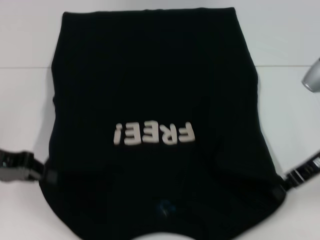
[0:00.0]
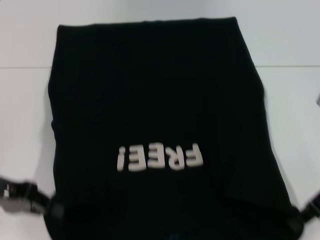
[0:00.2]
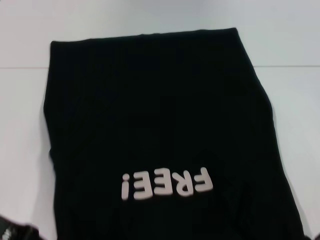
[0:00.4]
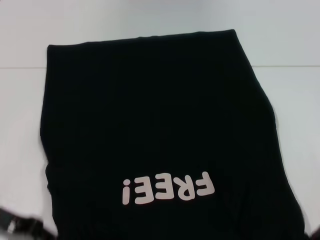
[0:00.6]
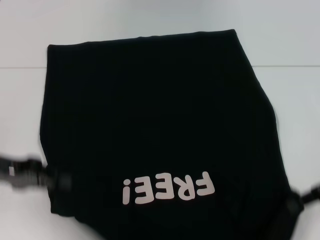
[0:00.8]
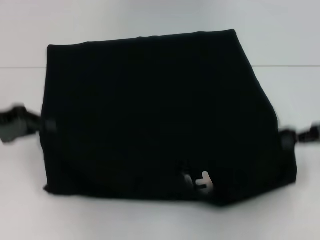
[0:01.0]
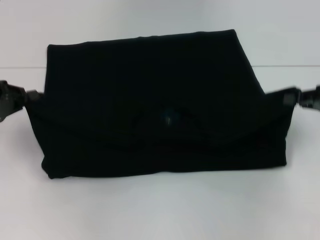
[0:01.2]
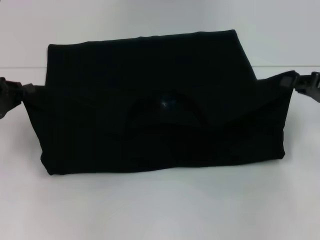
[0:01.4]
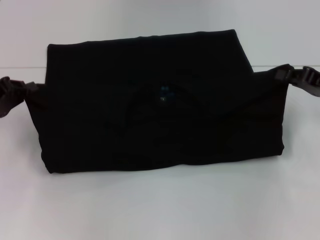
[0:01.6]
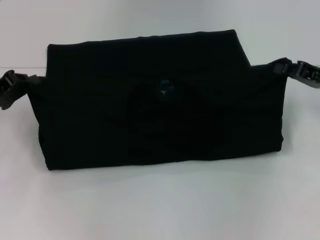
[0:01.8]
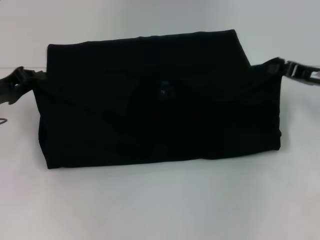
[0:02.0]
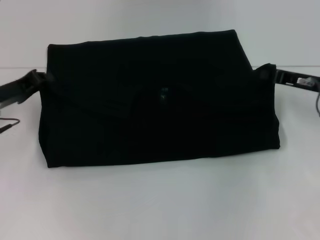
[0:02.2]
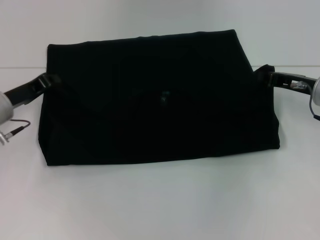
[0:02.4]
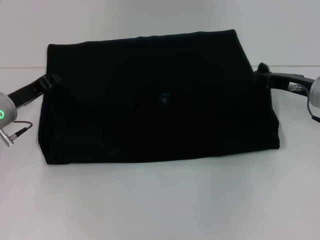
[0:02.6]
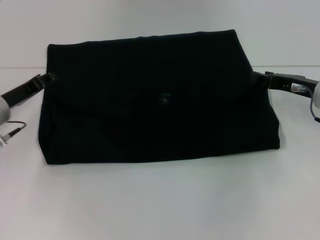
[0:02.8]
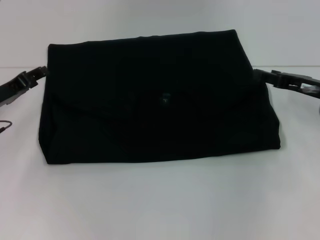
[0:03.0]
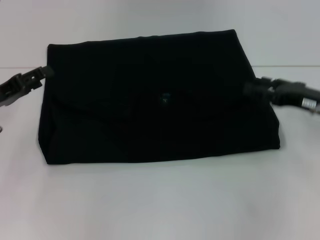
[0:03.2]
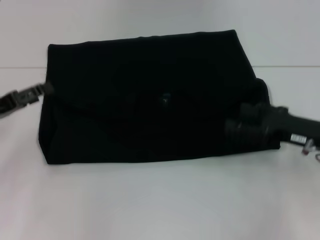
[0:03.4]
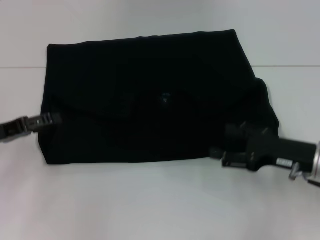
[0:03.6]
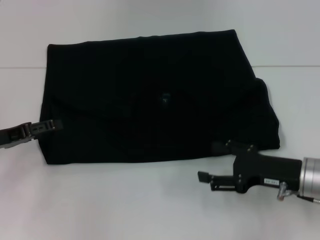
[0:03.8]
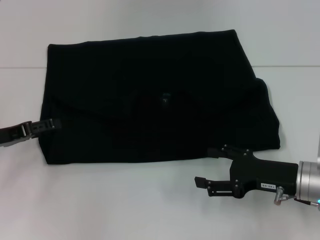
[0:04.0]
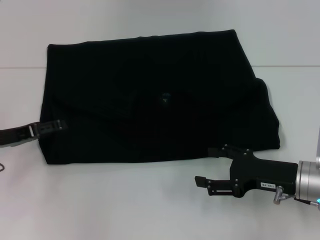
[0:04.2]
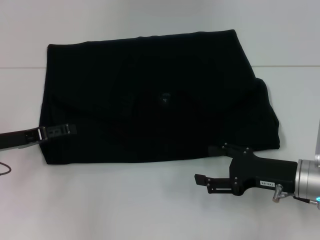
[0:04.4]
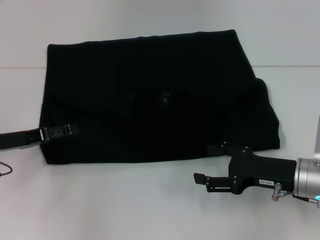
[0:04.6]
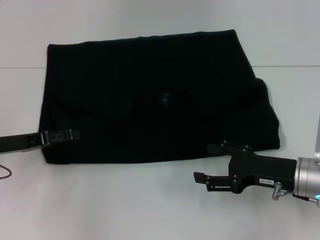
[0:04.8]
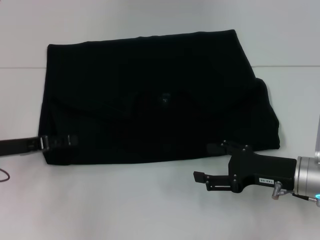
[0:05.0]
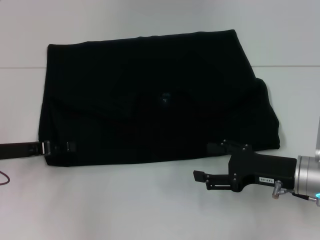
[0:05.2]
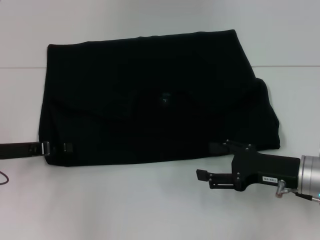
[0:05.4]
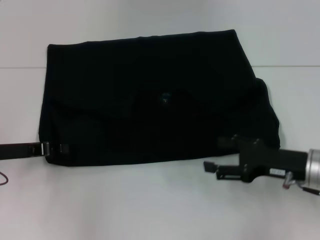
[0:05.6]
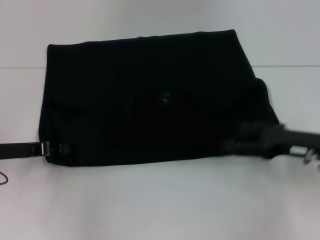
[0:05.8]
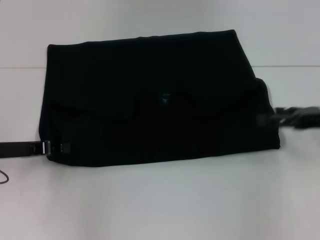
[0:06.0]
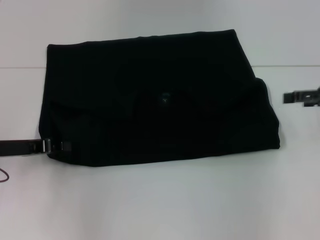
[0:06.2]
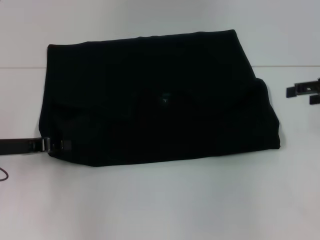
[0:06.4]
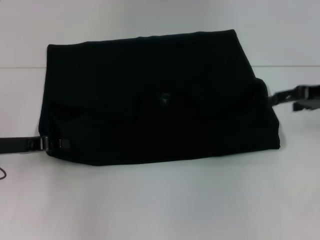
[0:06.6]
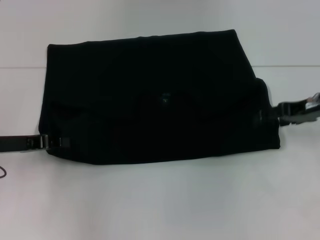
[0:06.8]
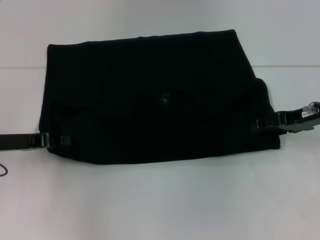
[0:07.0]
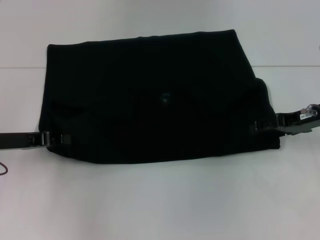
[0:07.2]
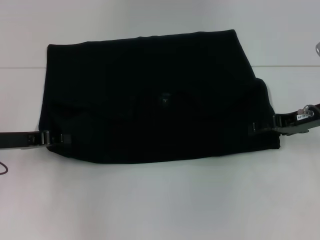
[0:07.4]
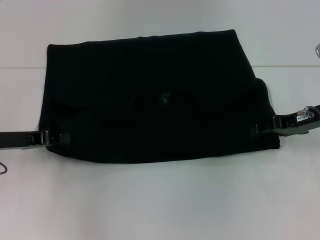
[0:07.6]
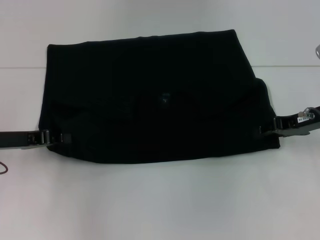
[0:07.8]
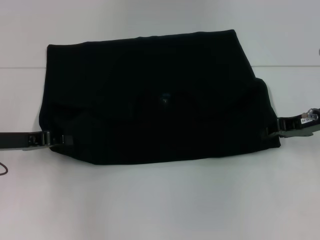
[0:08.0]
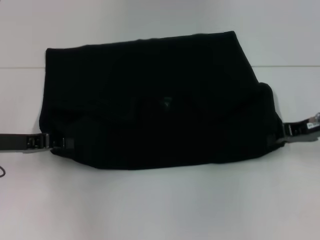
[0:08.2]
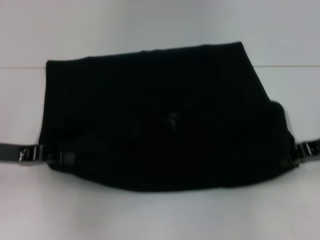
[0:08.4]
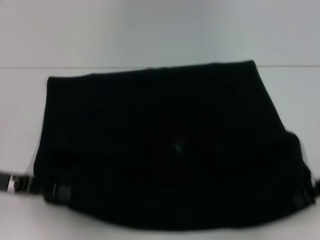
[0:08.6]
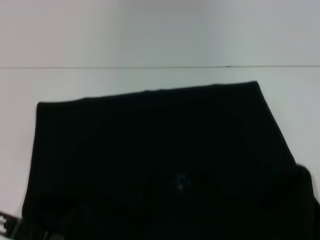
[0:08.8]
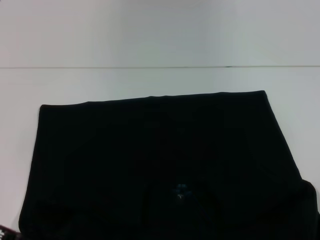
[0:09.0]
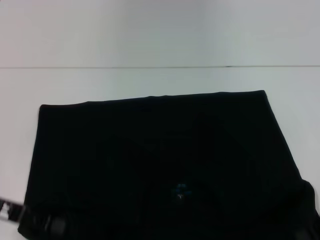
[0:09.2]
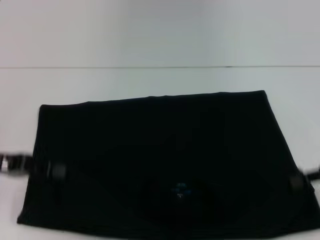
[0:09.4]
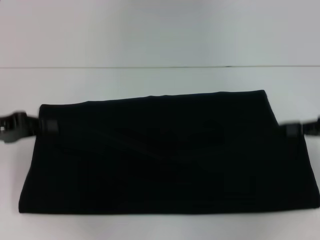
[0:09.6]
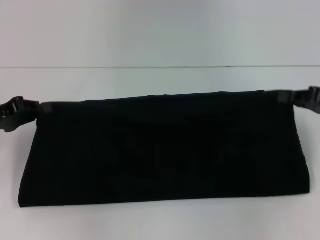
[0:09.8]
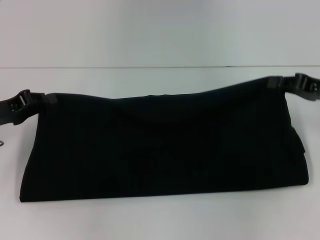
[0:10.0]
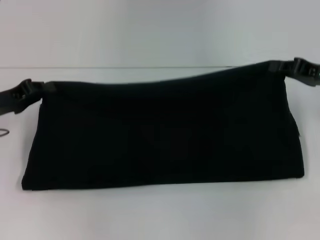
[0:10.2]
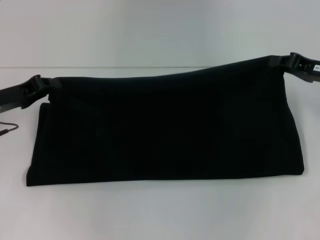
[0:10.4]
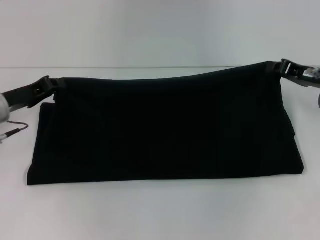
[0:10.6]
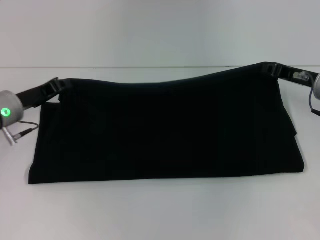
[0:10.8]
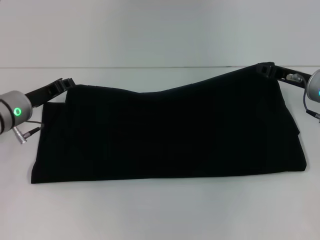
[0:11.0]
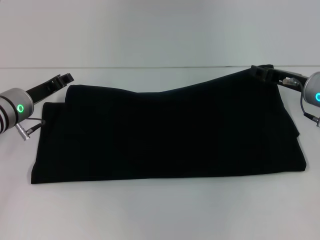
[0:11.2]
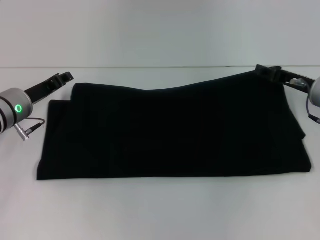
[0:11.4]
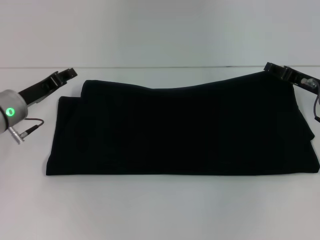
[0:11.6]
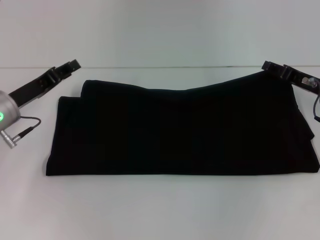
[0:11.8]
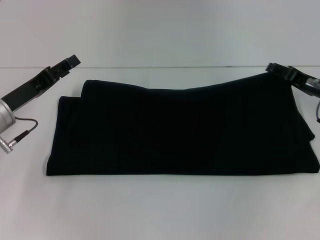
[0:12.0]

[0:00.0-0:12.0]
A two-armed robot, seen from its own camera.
Step, 0:00.0 to 0:02.6: Fold the clothes with your left hand.
Step, 0:00.0 to 0:02.6: Fold the clothes with your right hand.
Step, 0:02.8 to 0:09.0: Pull the clothes with your left hand.
Step, 0:02.8 to 0:09.0: Pull the clothes with your right hand.
0:00.0 to 0:01.6: The right gripper heads to the right, covering about 5 cm. The left gripper reaches some 5 cm backward, then returns.
0:01.6 to 0:03.0: The right gripper opens. The left gripper opens its fingers.
0:03.0 to 0:04.4: The right gripper shifts about 10 cm backward, to the left and downward, and opens its fingers. Meanwhile the left gripper opens.
0:04.4 to 0:06.0: The left gripper closes up. The right gripper goes some 15 cm to the right, upward and forward.
0:06.0 to 0:07.6: The right gripper changes place by roughly 5 cm.
0:07.6 to 0:09.0: The grippers both shift backward by some 10 cm. The right gripper closes its fingers.
0:09.0 to 0:10.4: The grippers both shift forward by about 10 cm.
0:10.4 to 0:12.0: The left gripper opens its fingers. Meanwhile the right gripper opens.

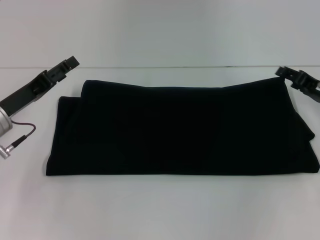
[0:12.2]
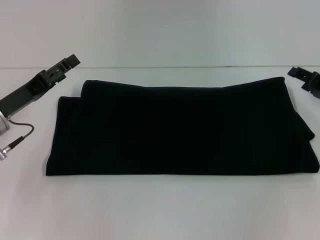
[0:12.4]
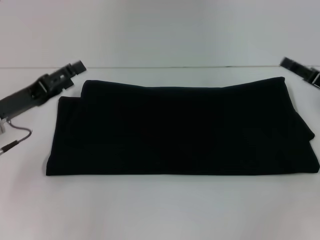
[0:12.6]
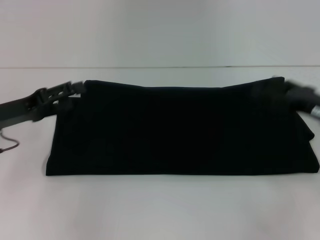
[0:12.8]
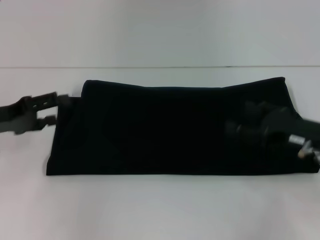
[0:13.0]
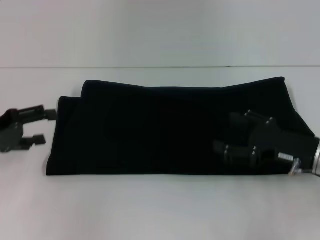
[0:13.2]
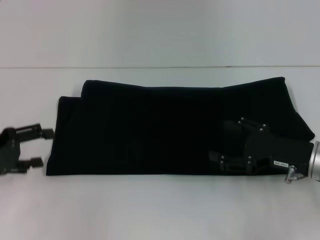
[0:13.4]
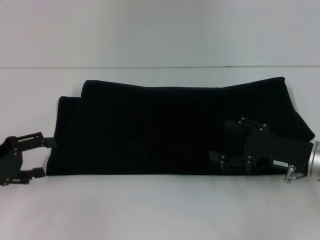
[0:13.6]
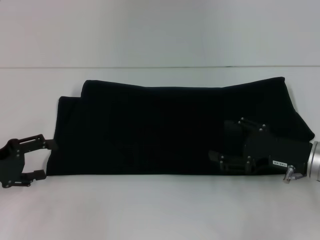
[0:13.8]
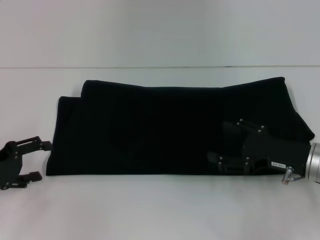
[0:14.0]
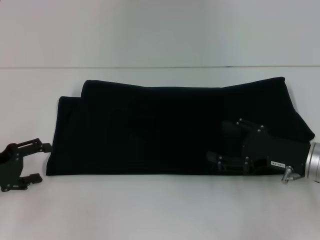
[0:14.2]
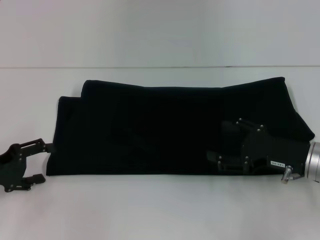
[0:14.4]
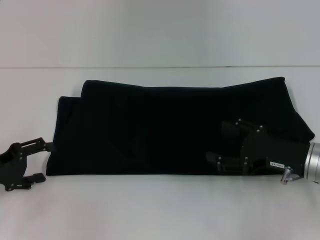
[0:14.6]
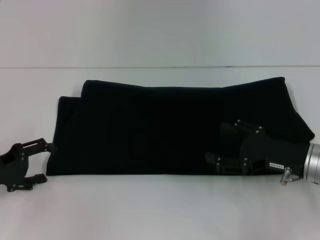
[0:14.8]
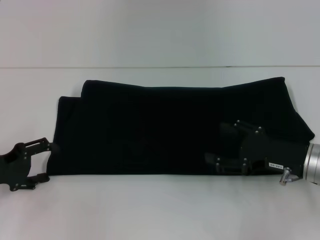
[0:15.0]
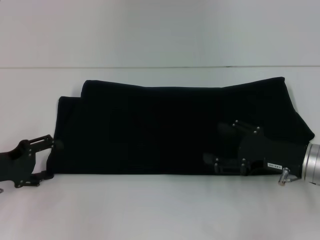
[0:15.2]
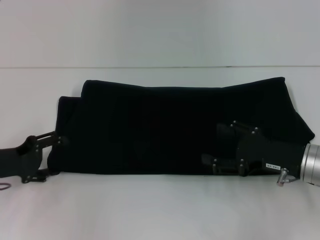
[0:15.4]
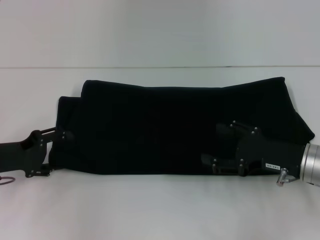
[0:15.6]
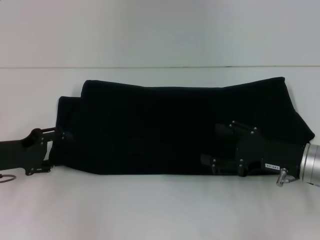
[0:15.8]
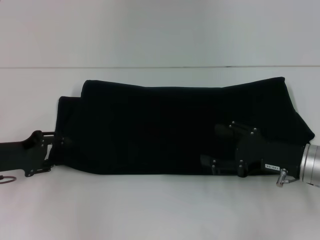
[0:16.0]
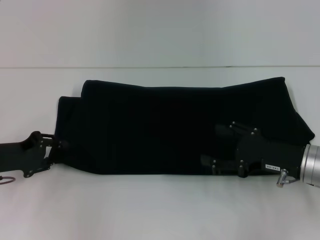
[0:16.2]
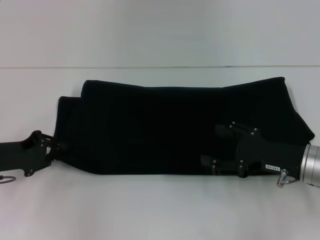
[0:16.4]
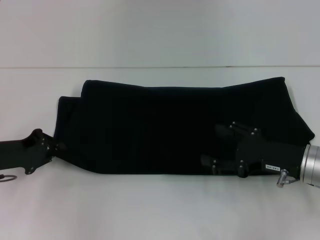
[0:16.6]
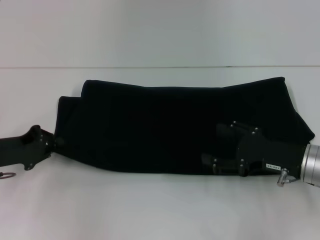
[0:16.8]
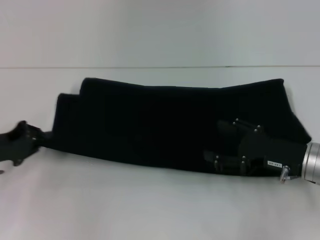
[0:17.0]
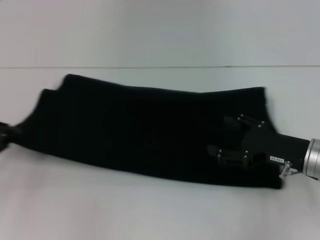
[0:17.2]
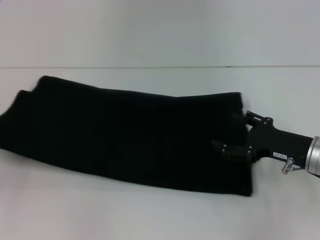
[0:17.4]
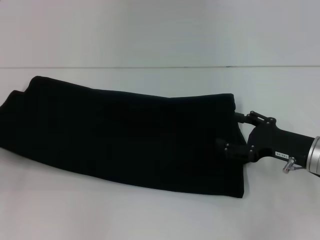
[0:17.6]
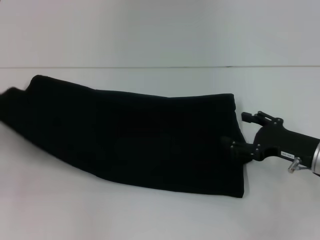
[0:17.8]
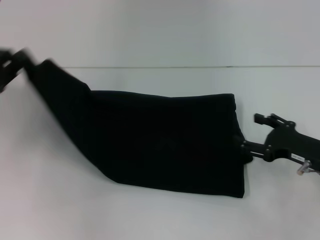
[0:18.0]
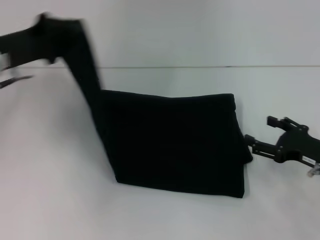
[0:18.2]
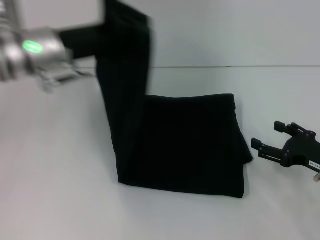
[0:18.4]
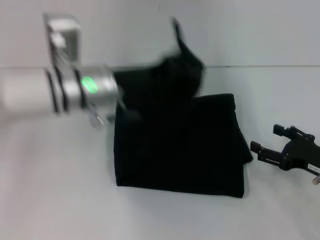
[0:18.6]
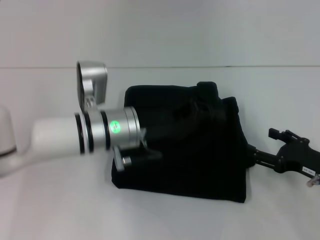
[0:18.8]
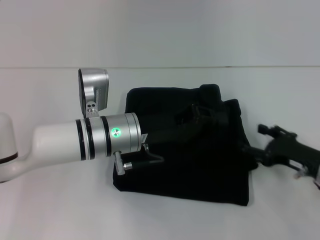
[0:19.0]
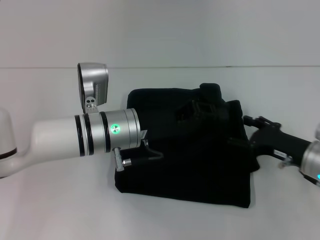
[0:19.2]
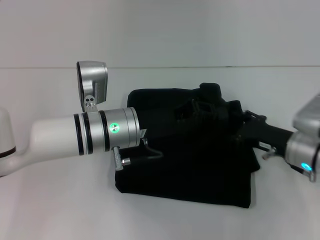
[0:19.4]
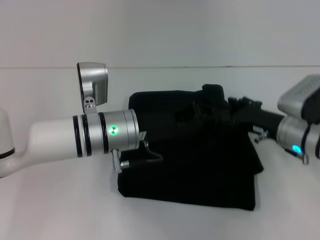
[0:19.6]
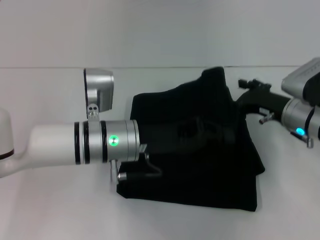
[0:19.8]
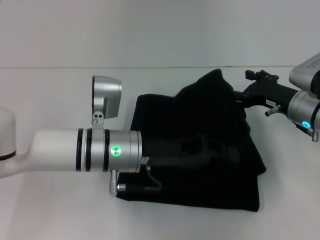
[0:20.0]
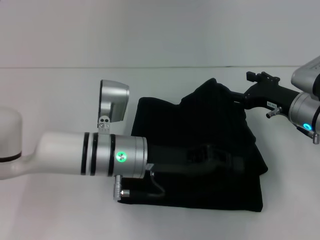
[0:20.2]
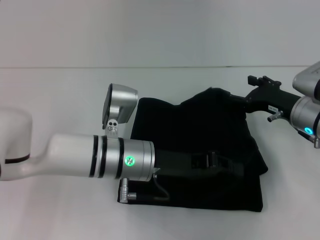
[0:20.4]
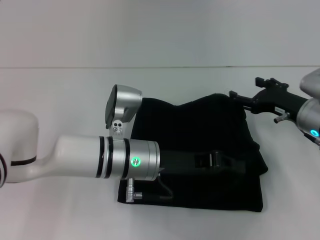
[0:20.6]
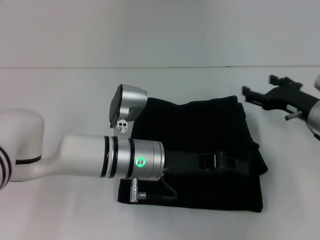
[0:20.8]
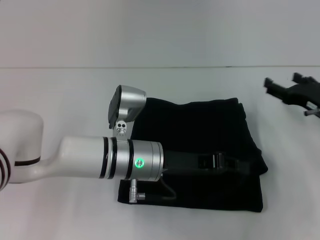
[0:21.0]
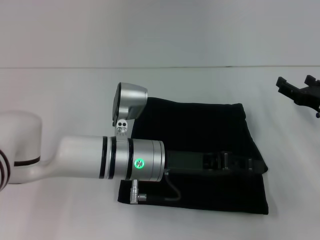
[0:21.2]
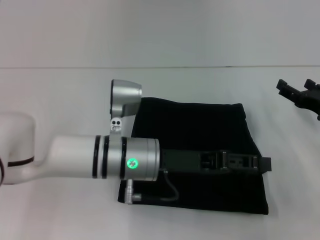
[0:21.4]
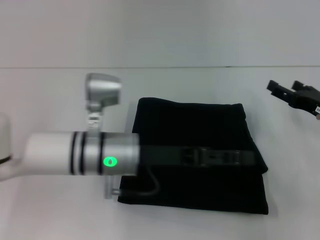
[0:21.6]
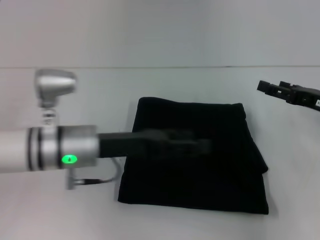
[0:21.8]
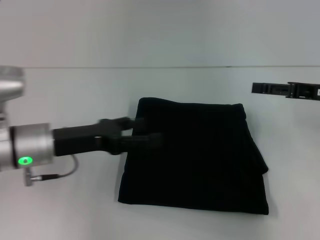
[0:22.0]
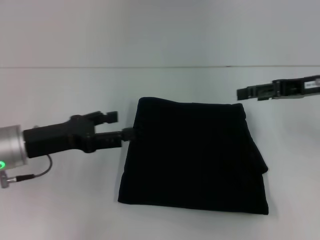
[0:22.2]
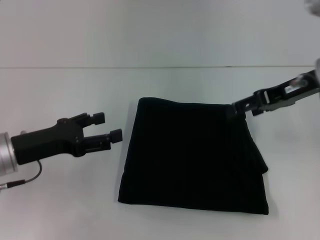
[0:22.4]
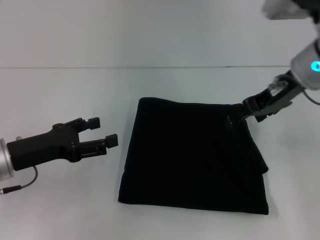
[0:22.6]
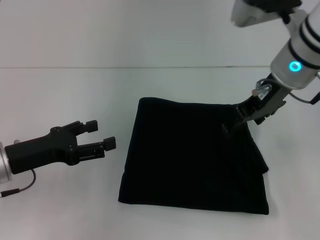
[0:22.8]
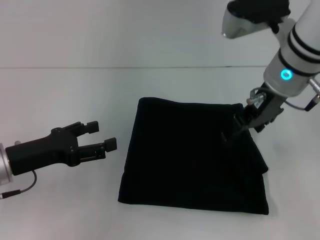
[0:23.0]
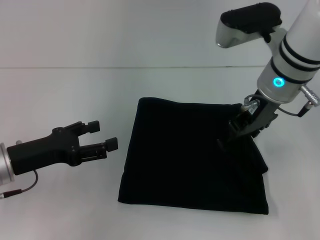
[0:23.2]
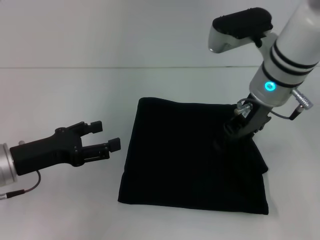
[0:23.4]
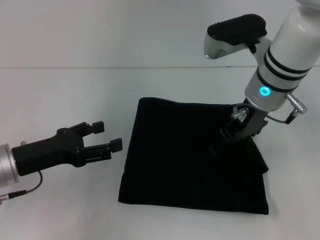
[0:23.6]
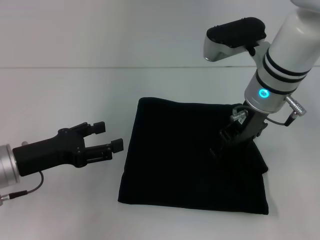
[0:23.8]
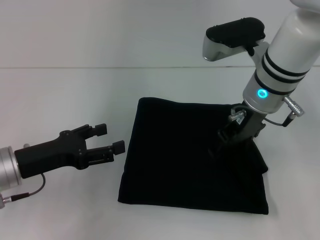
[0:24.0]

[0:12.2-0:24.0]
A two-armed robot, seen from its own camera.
Step, 0:12.2 to 0:21.2: Fold the clothes with your left hand.
0:12.2 to 0:13.6: The left gripper heads to the left and backward, covering some 10 cm, while the right gripper moves backward and to the left, roughly 10 cm.
0:13.6 to 0:15.2: The grippers move only a little.
0:15.2 to 0:16.6: The left gripper closes.
0:16.6 to 0:18.2: The left gripper travels upward and forward by roughly 15 cm, and goes to the left and returns, some 10 cm each way. The right gripper goes roughly 5 cm to the right.
0:18.2 to 0:19.6: The left gripper heads to the right, covering some 20 cm. The right gripper goes roughly 10 cm to the left and forward.
0:19.6 to 0:21.0: The right gripper heads to the right, covering about 5 cm.
0:21.0 to 0:22.6: The left gripper goes roughly 20 cm to the left, and opens. The right gripper travels upward and to the left by roughly 20 cm.
0:22.6 to 0:24.0: The right gripper shifts about 5 cm to the left.
